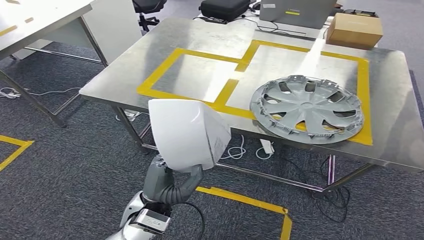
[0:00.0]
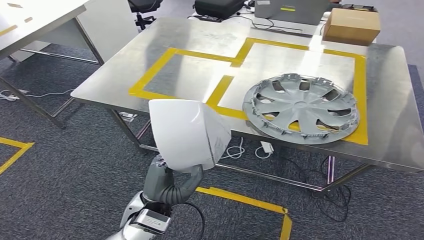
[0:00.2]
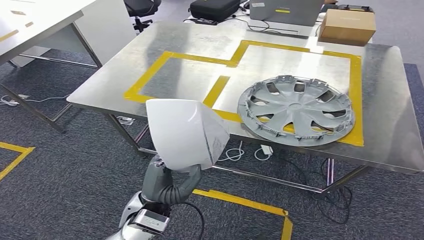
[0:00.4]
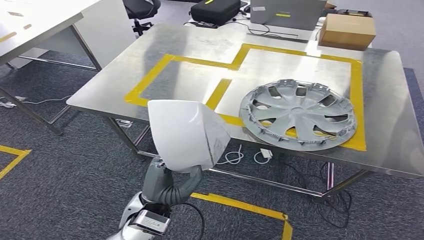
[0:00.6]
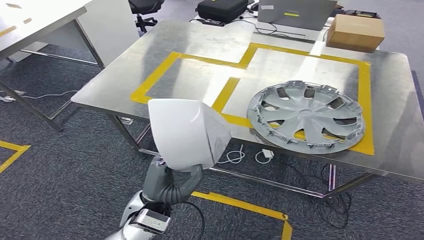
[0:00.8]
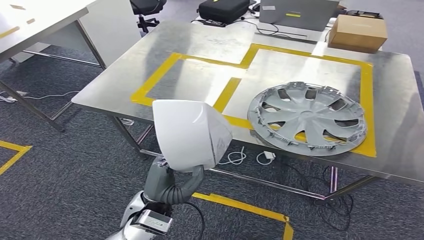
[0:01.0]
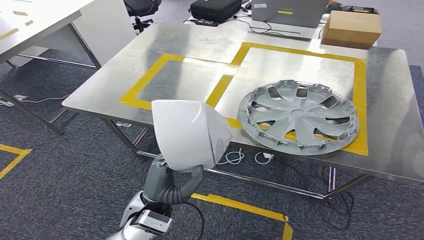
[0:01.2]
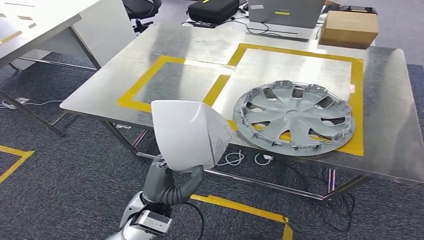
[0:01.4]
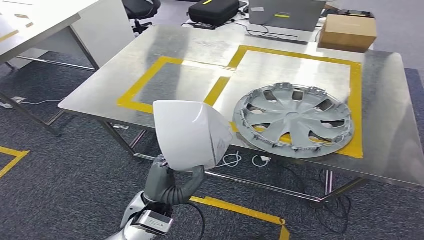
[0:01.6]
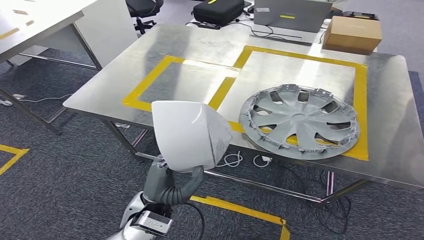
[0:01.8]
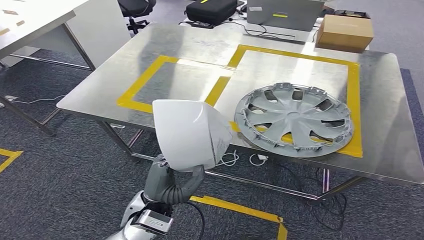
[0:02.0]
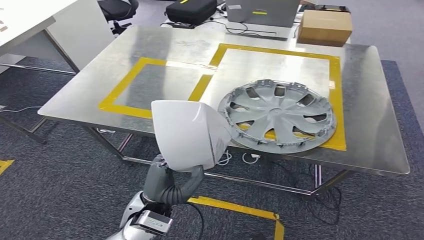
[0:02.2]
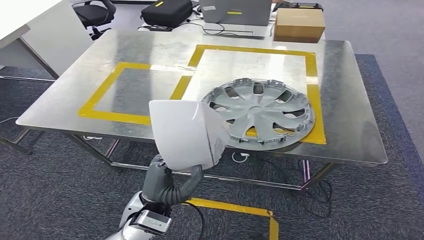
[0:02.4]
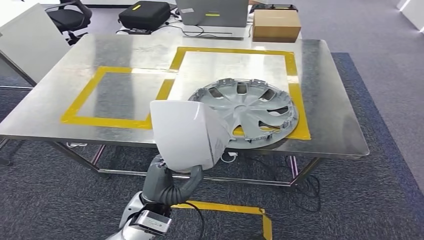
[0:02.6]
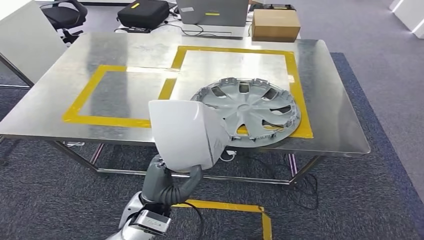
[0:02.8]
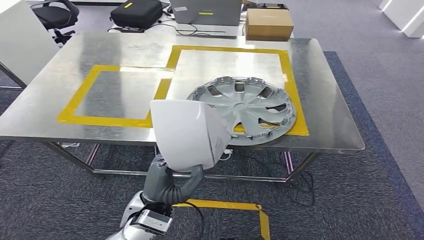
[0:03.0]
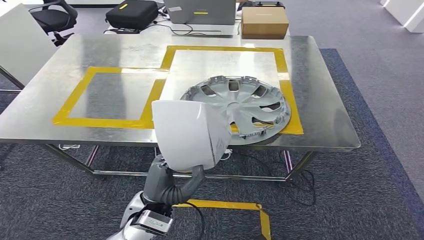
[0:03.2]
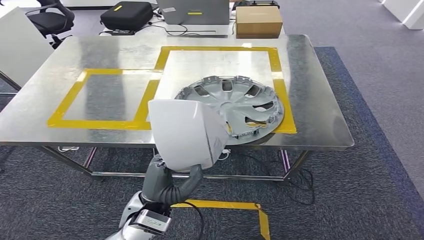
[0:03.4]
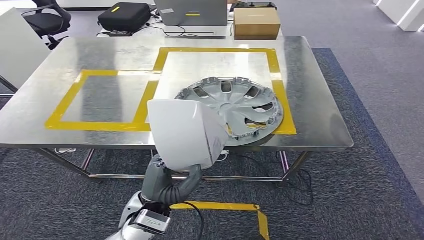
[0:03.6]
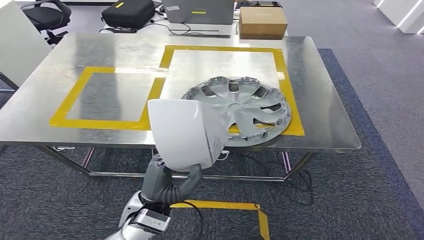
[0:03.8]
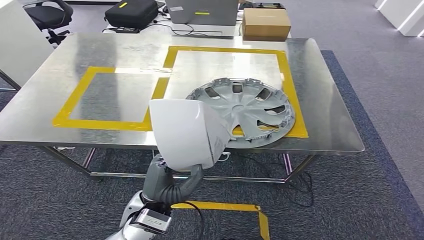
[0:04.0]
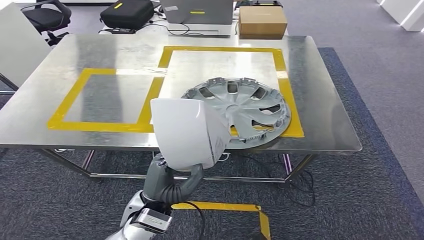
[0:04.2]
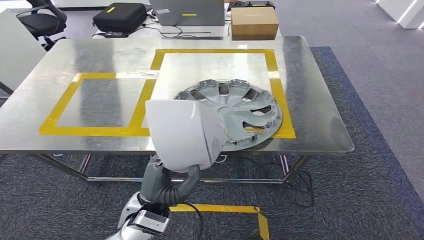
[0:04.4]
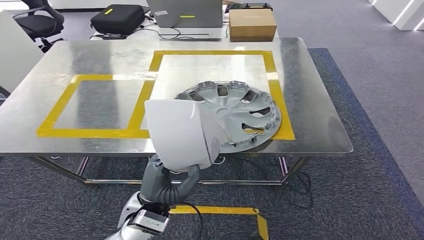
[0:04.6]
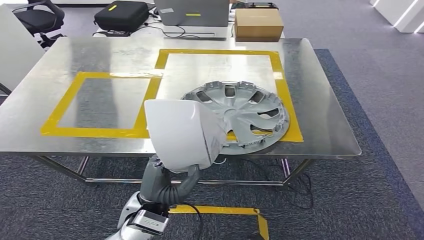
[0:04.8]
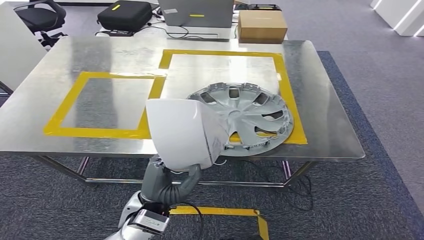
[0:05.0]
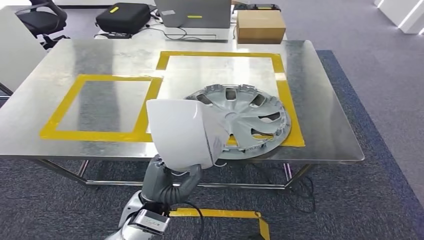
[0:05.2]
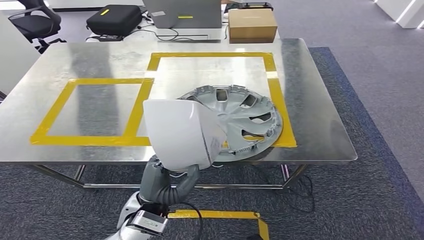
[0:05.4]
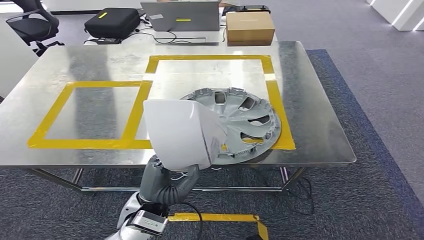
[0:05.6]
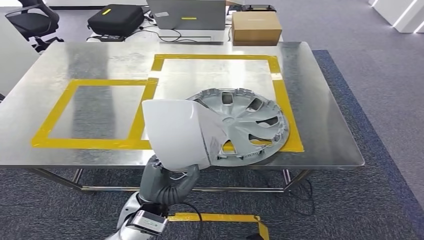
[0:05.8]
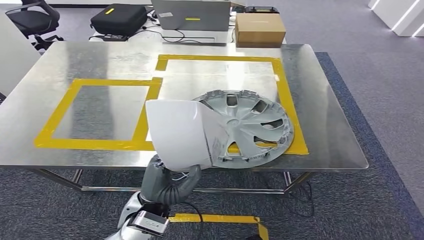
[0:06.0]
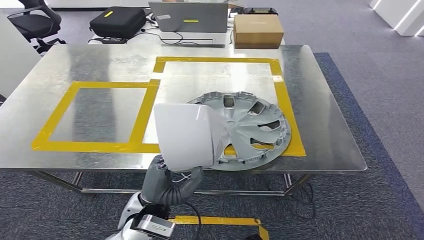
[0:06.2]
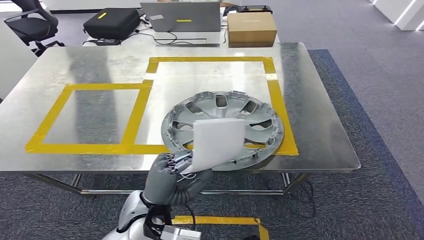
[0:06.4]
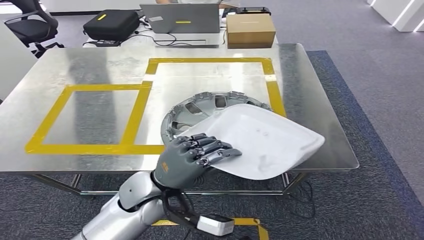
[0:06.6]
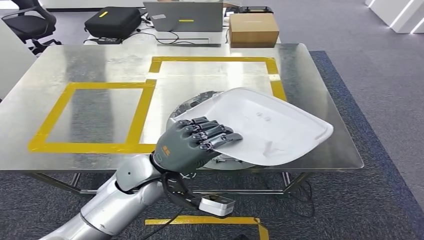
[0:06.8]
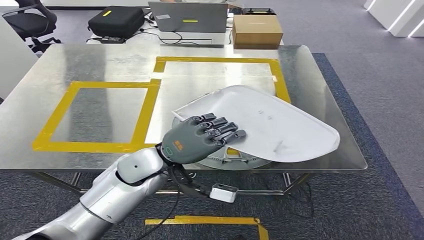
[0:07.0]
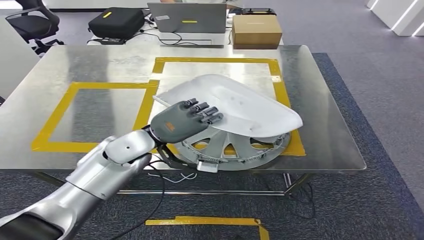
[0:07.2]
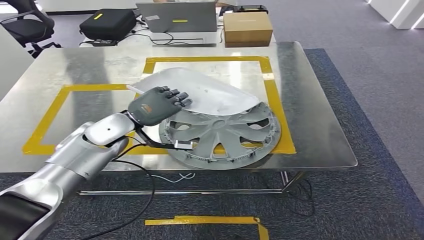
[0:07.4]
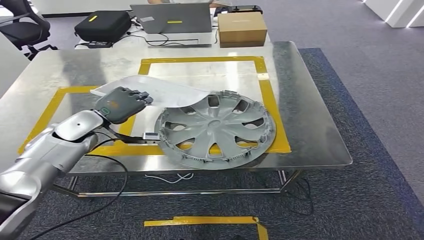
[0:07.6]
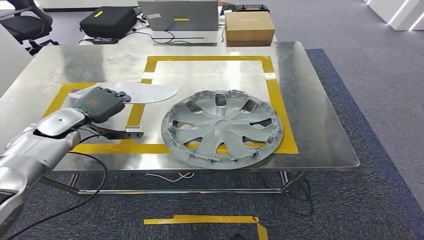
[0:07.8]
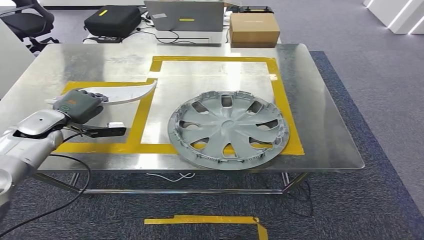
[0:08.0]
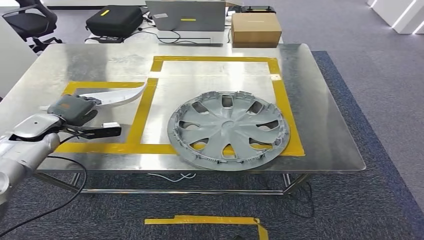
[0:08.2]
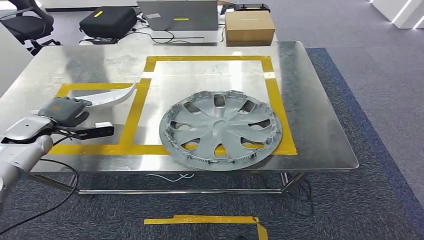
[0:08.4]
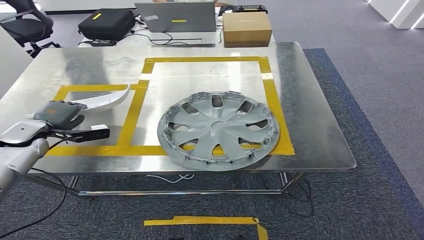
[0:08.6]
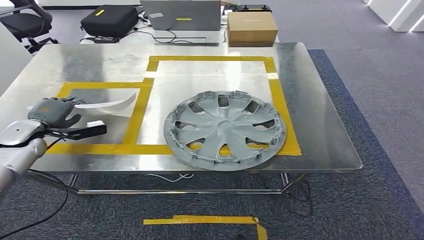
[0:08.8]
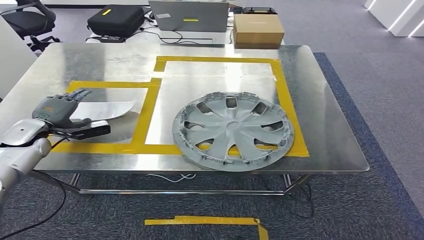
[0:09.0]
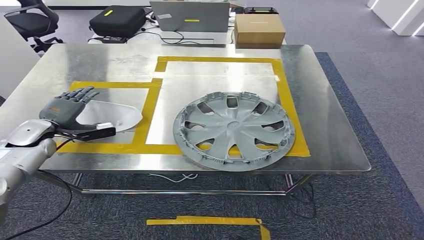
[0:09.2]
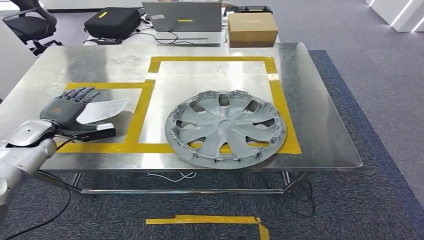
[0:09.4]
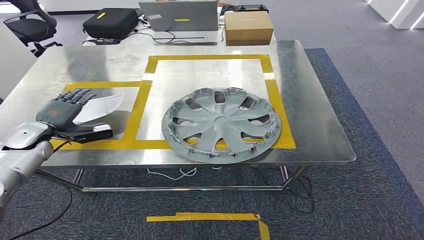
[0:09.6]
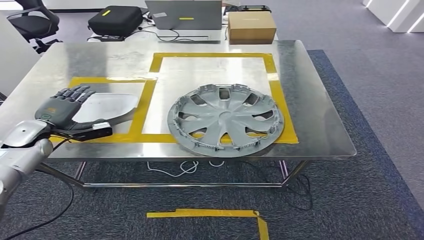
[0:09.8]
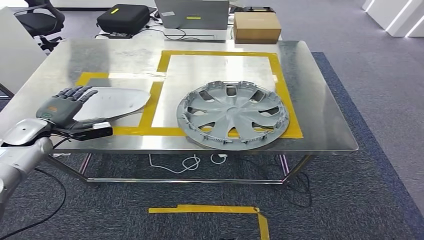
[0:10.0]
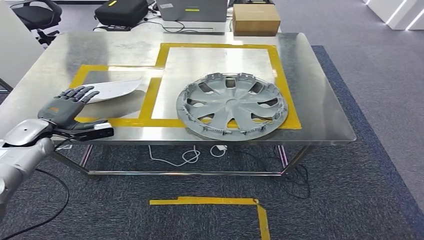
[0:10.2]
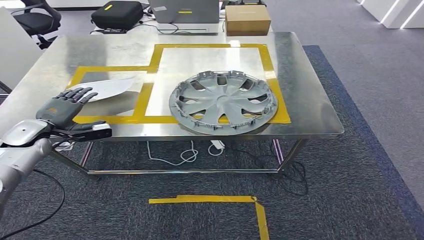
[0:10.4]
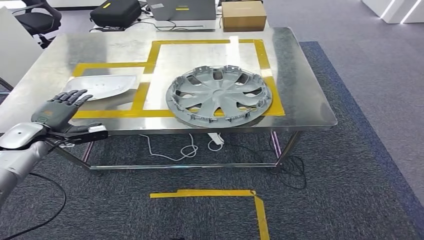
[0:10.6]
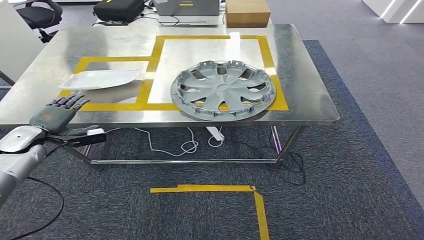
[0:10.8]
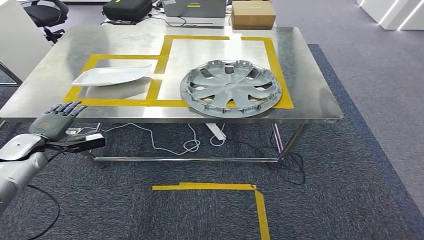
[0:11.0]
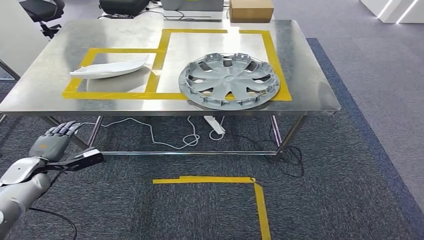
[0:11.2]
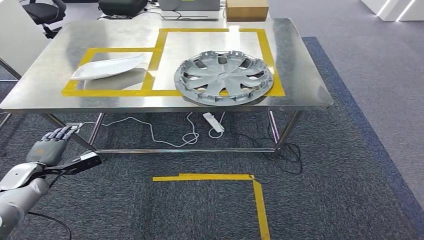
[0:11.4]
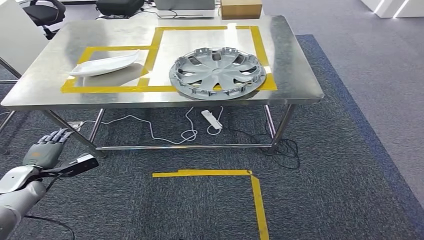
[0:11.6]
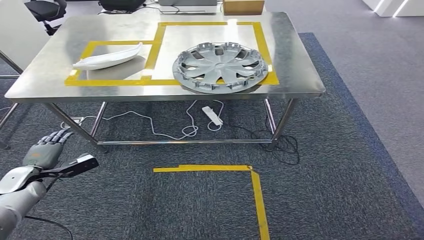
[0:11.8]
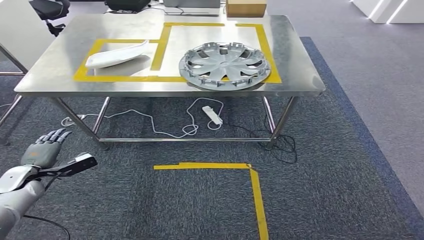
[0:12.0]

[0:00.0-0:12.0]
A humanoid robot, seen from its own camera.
Step, 0:00.0 to 0:07.8: Move the small parts to the workbench.

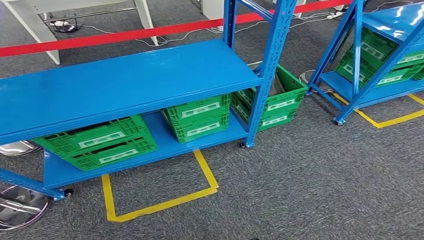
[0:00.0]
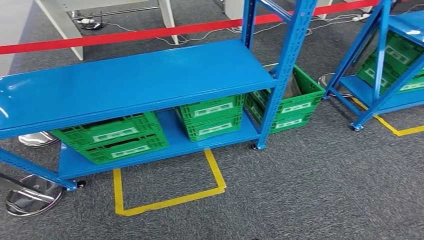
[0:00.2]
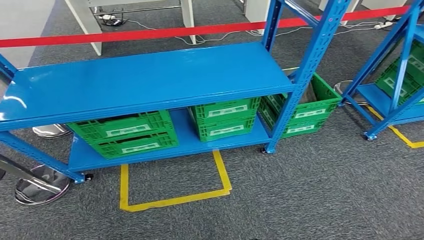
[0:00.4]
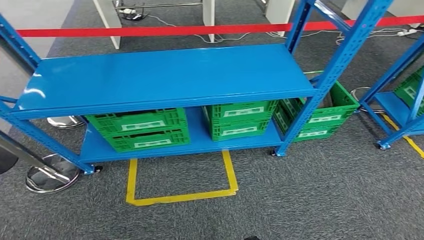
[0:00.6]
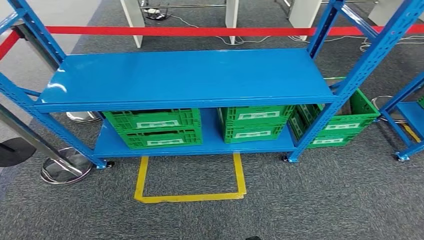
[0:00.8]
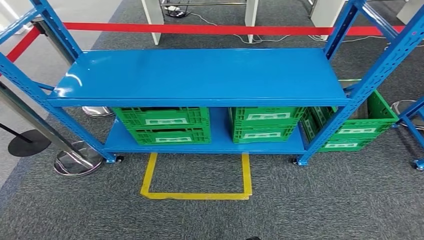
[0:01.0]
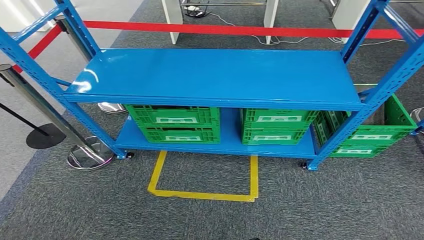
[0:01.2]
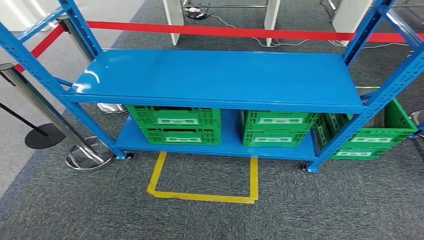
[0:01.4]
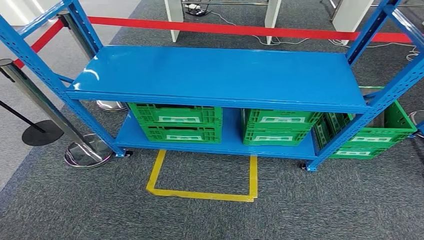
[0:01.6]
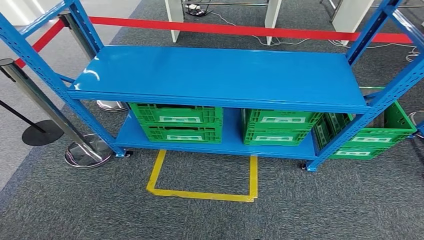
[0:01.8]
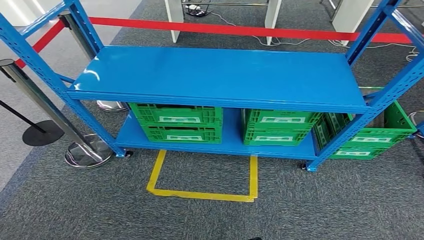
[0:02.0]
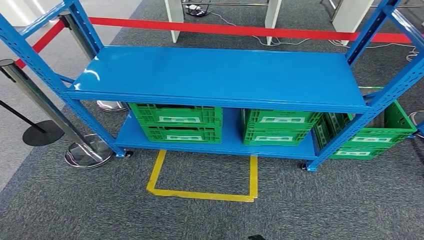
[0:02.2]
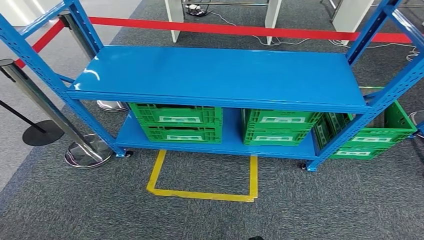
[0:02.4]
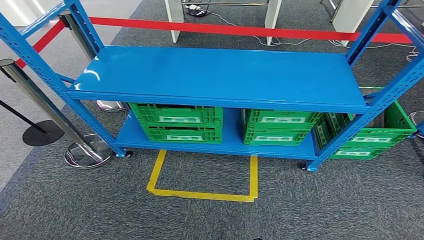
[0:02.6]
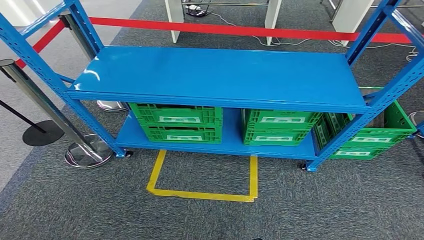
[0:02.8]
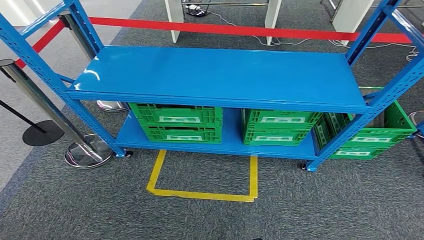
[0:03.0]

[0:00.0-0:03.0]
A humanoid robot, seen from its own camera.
Step, 0:00.0 to 0:03.0: Move to the initial position at the workbench.
0:01.6 to 0:03.0: Both hands stay about where they are.

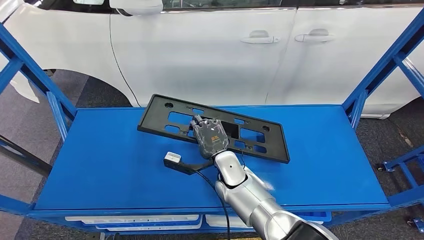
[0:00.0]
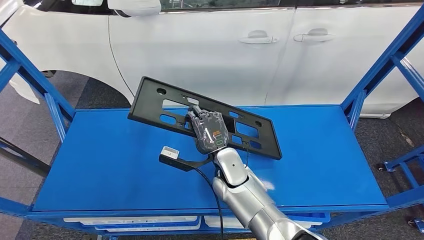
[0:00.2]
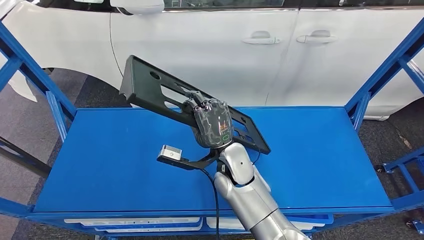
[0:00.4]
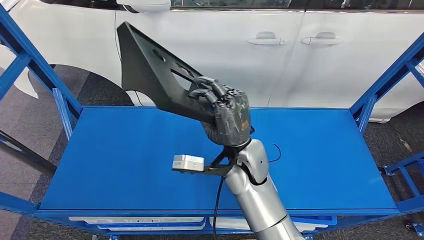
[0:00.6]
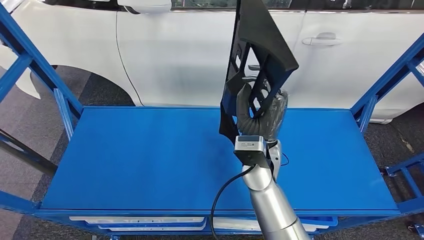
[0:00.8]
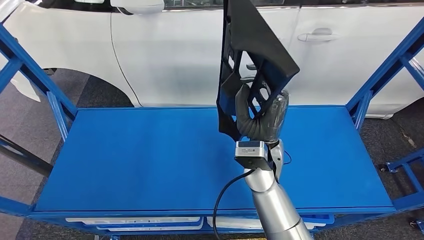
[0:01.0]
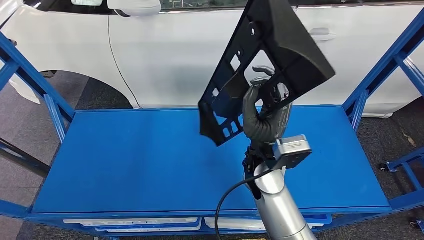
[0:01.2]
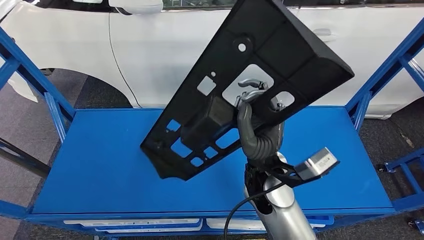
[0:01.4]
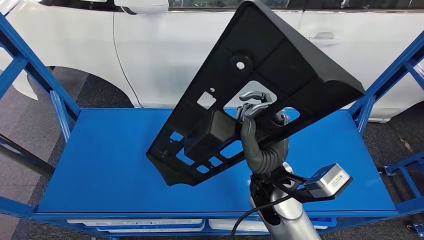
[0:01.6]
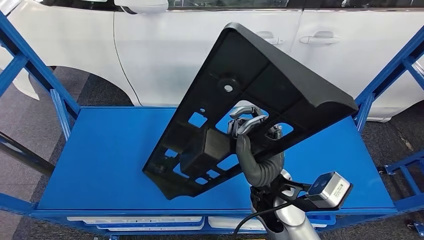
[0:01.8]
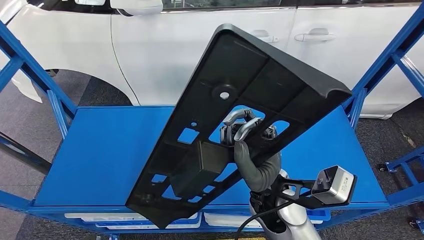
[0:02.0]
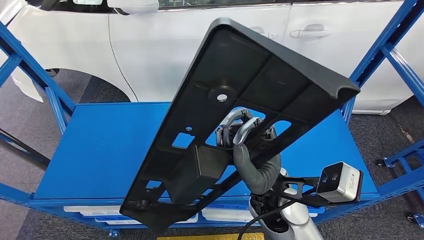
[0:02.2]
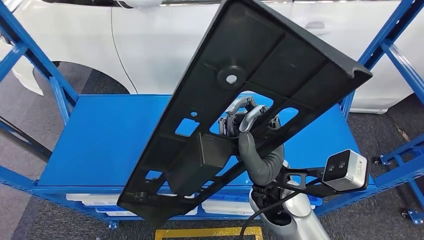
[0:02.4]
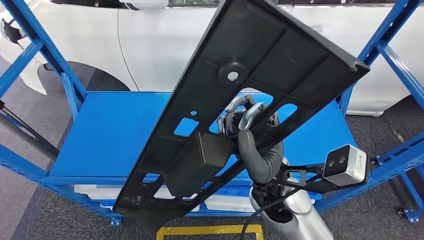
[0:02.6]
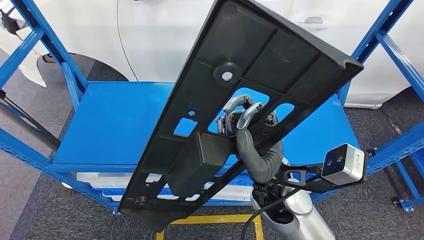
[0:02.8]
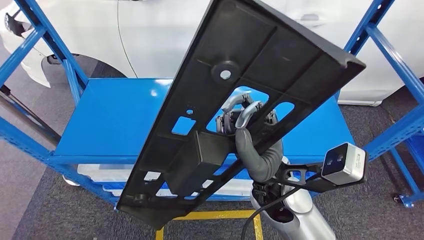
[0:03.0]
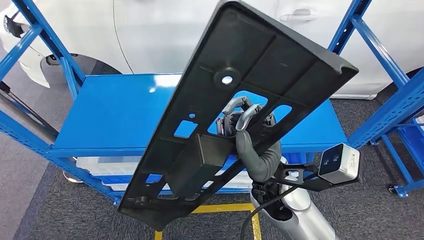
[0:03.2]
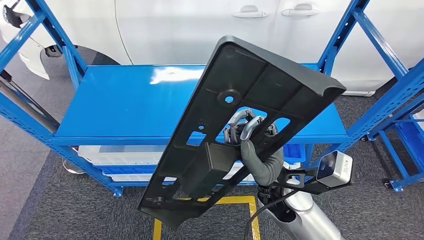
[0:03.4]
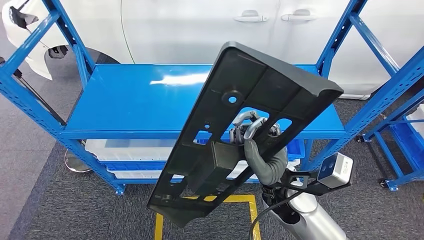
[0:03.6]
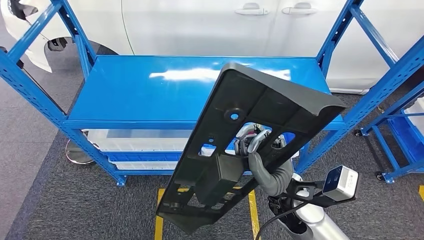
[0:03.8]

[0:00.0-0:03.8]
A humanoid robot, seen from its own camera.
Step, 0:00.0 to 0:02.0: Pick up the small parts from the shelf.
